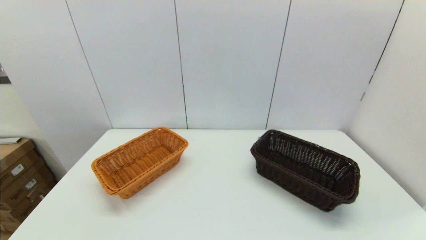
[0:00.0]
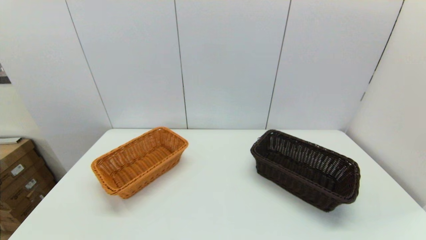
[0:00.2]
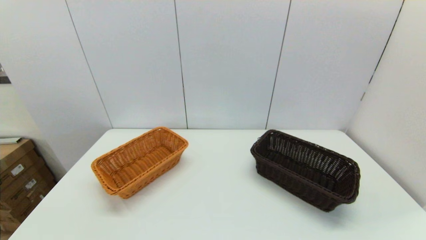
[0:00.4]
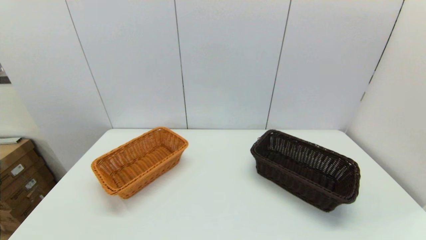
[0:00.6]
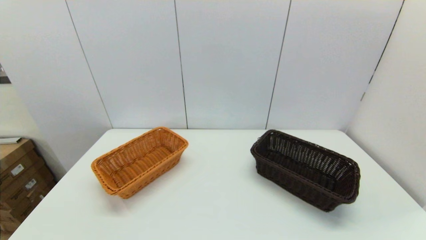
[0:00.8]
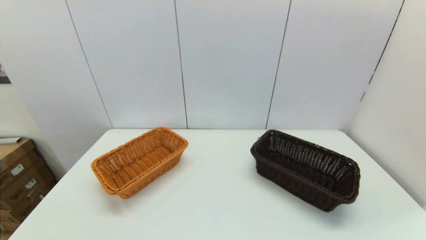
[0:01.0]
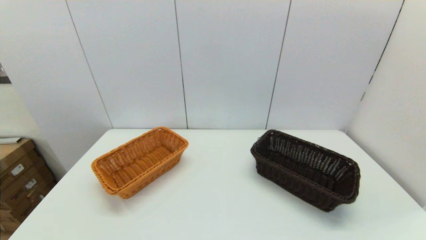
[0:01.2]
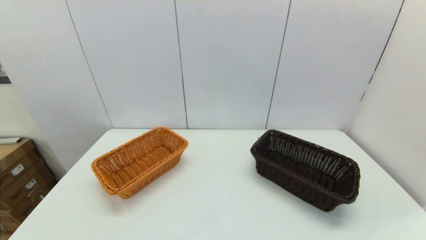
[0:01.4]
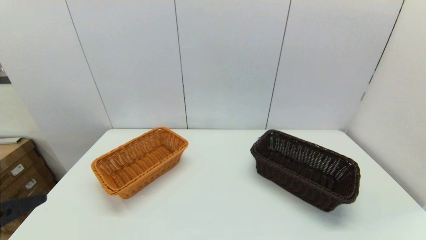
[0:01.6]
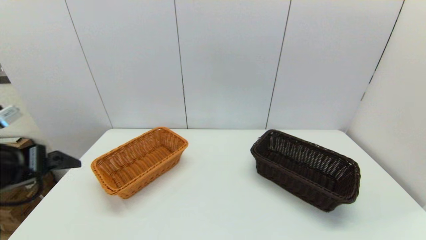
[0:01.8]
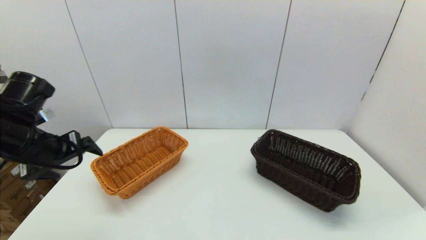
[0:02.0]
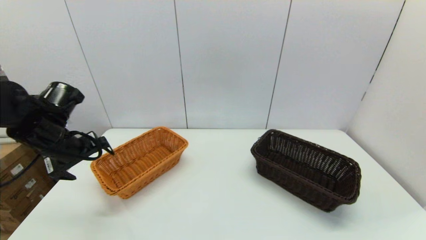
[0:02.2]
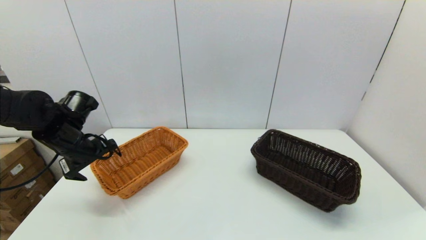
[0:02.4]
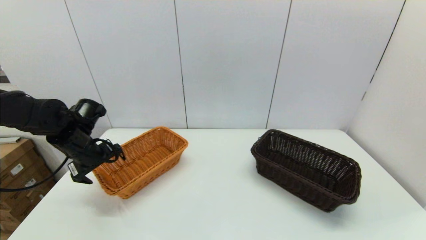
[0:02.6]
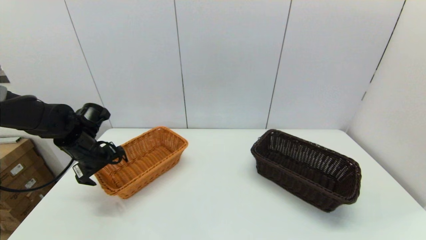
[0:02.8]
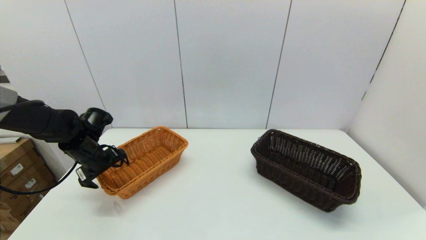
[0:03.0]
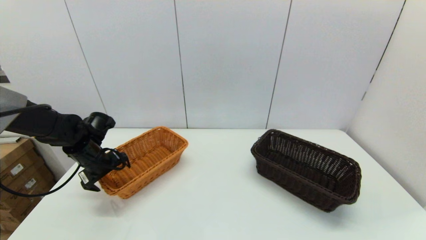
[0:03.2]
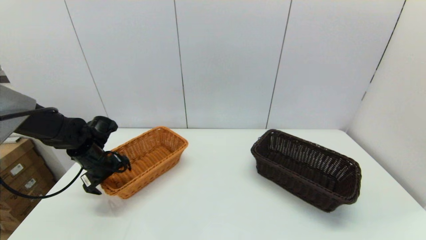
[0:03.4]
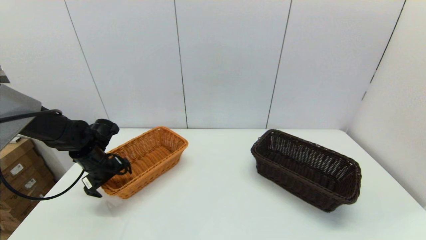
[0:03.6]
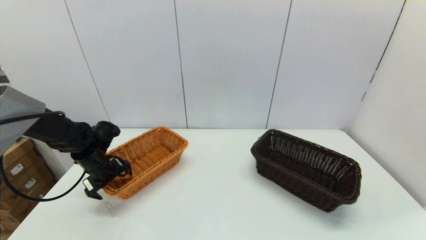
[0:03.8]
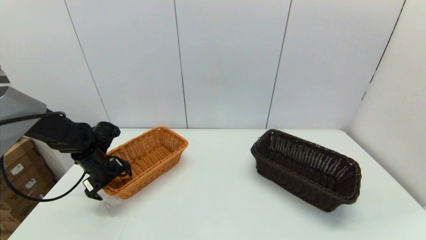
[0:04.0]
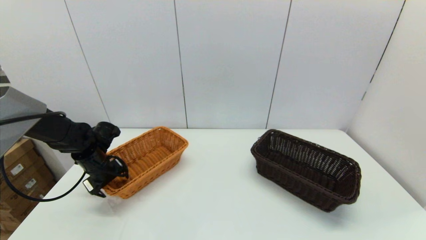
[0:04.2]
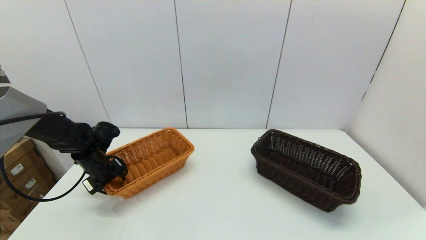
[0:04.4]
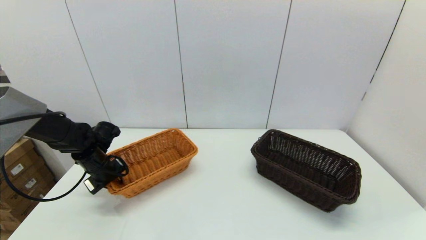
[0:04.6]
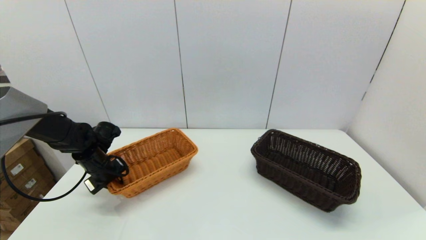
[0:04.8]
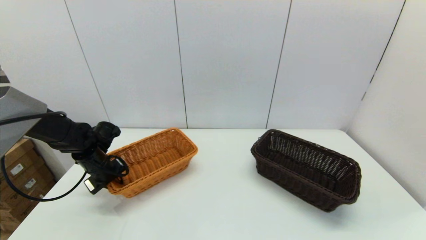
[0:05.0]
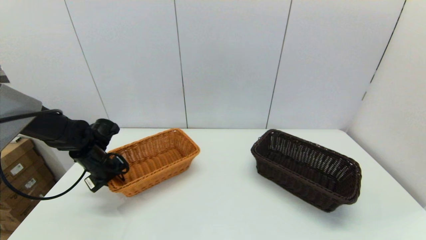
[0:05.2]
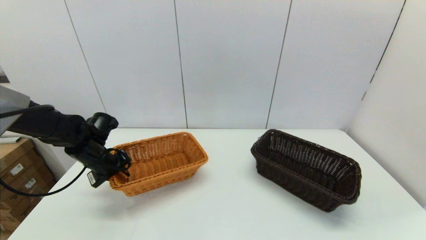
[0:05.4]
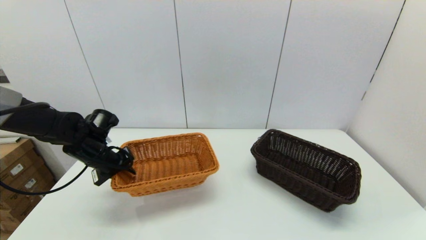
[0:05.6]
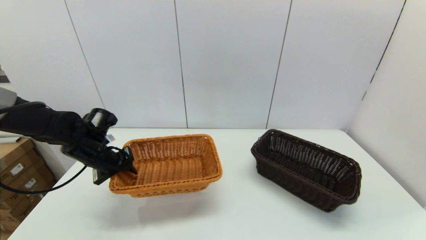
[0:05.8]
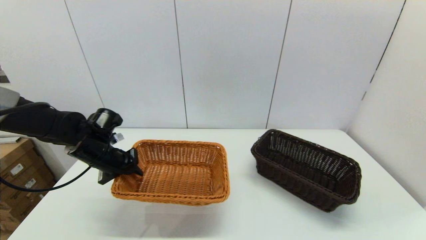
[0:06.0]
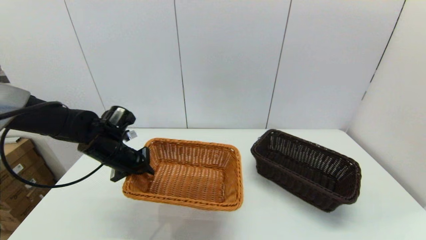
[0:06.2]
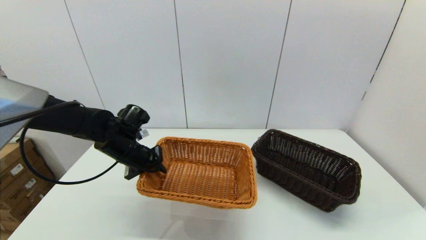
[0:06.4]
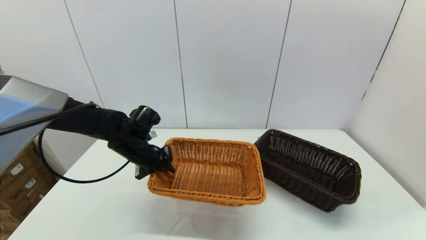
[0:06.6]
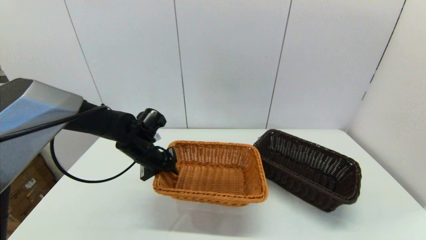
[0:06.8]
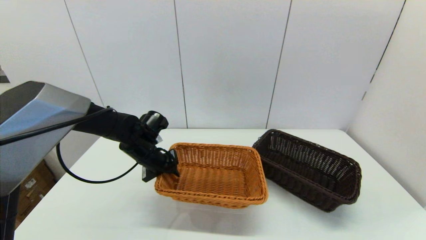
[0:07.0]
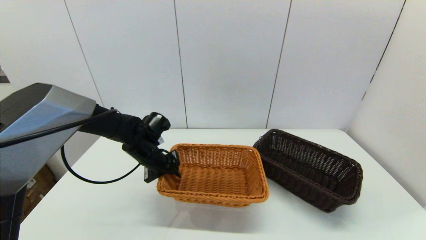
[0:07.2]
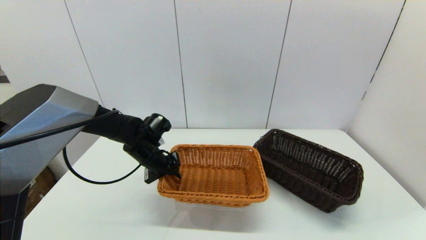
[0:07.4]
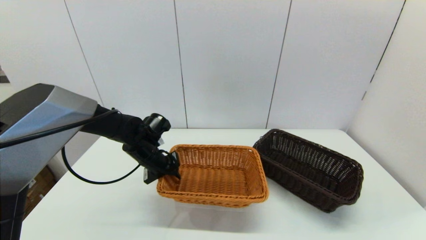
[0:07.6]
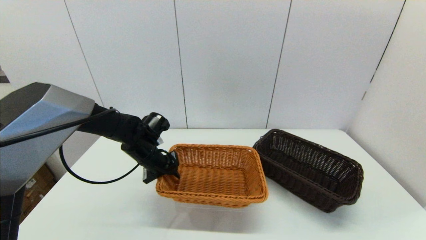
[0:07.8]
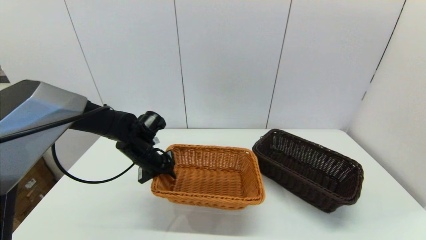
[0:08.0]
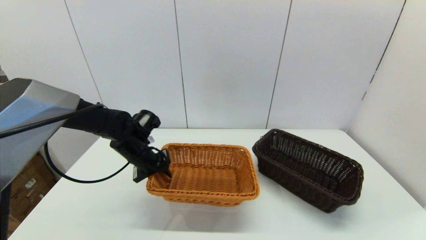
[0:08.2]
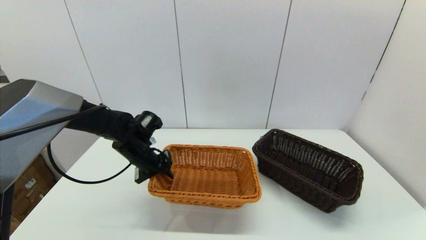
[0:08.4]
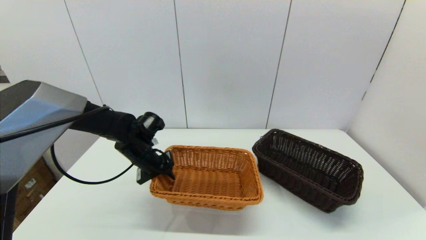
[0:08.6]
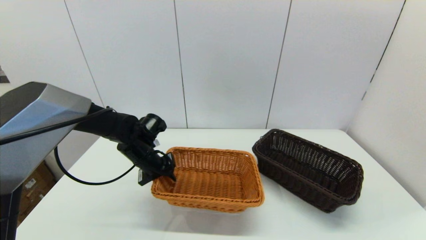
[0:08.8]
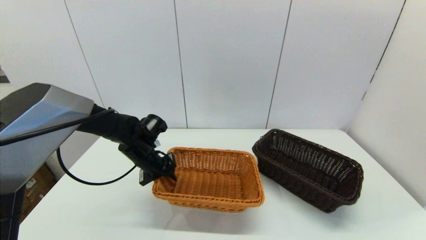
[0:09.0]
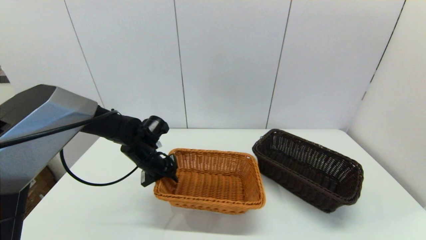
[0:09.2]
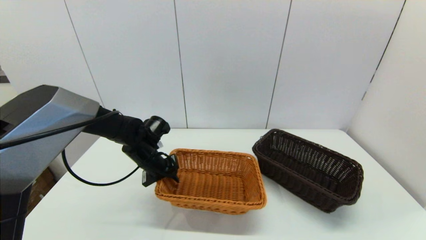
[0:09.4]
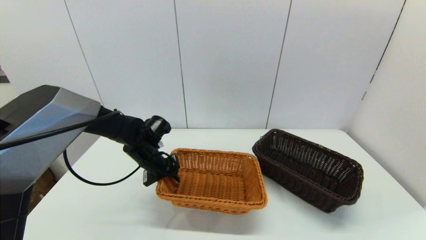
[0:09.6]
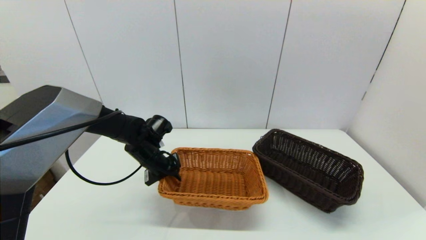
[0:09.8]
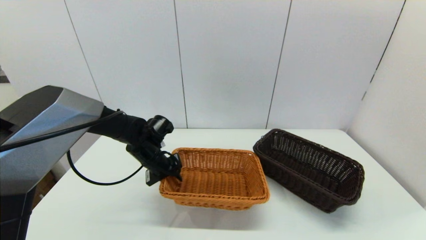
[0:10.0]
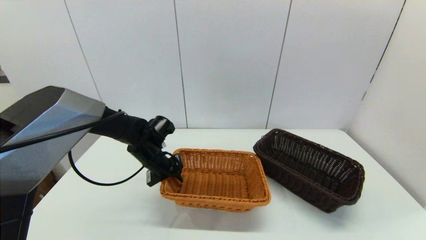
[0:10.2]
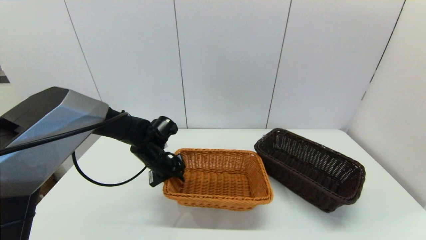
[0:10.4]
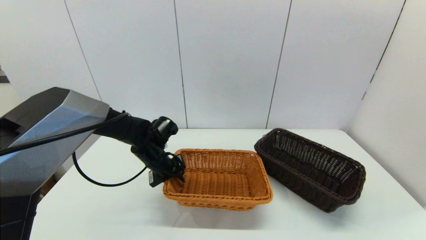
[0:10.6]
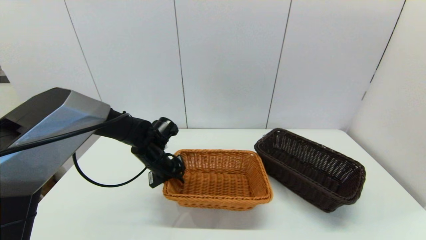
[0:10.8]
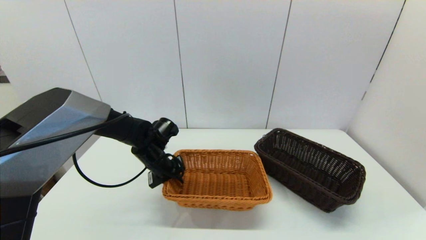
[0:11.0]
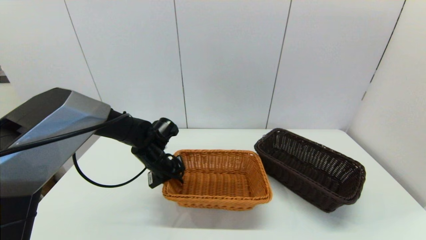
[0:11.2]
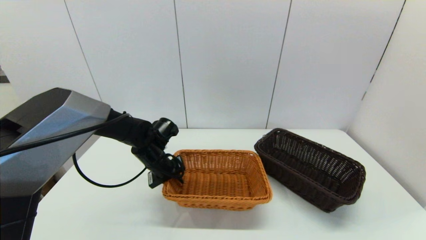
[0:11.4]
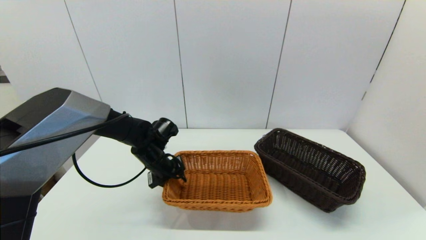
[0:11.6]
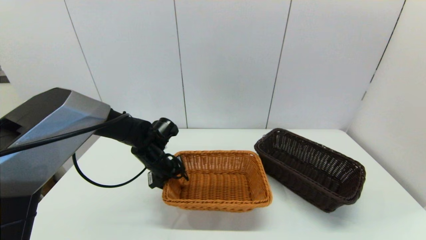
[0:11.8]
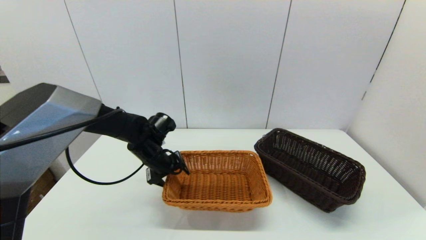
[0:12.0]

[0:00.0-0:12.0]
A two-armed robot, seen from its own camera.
Task of the whole recording: stack a basket on top of another basket.
Step, 0:01.4 to 0:04.8: Grasp the light basket with the left gripper.
0:01.6 to 0:03.0: The left gripper goes approximately 30 cm forward and downward.
0:03.0 to 0:04.4: The left gripper closes up.
0:04.4 to 0:06.0: The left gripper is displaced upward by approximately 5 cm, and closes up.
0:06.0 to 0:07.6: The left gripper moves to the right, about 10 cm.
0:07.6 to 0:10.4: The grippers move only a little.
0:10.4 to 0:12.0: The left gripper opens up.

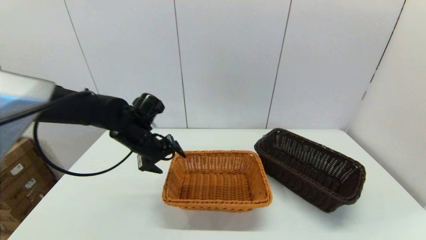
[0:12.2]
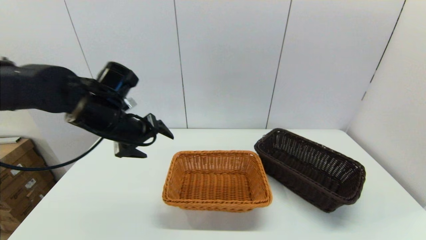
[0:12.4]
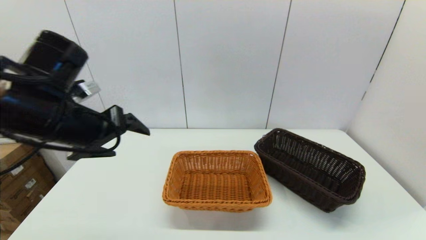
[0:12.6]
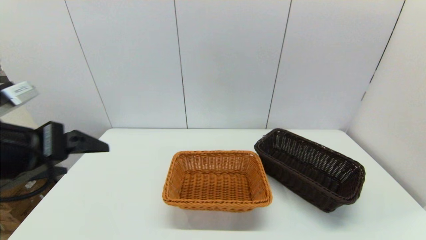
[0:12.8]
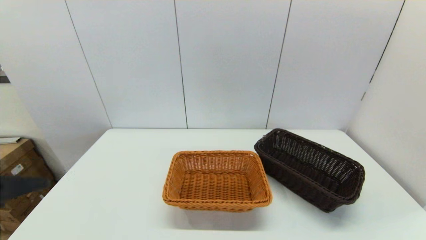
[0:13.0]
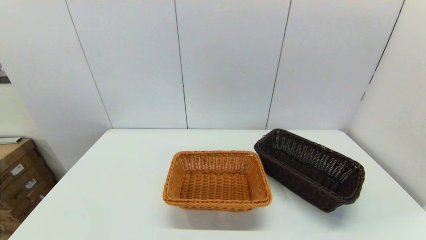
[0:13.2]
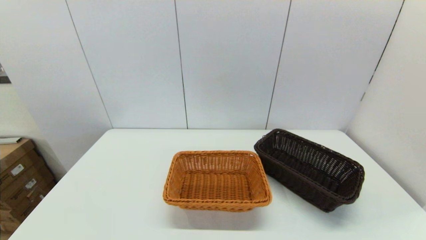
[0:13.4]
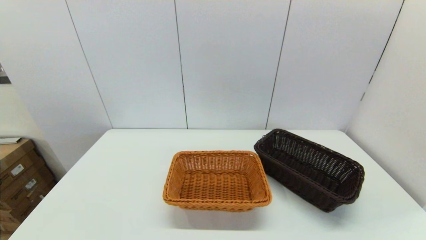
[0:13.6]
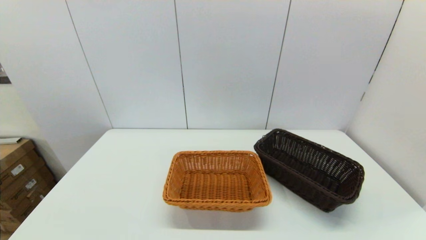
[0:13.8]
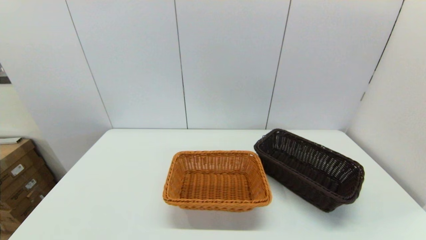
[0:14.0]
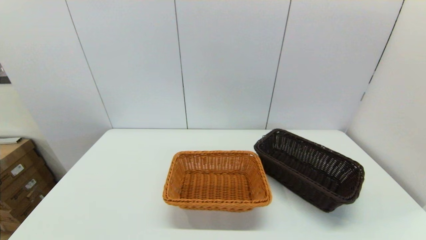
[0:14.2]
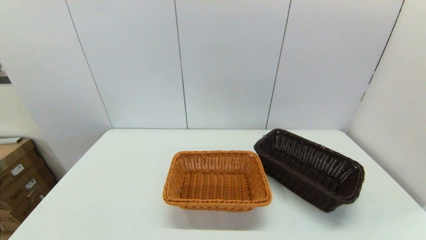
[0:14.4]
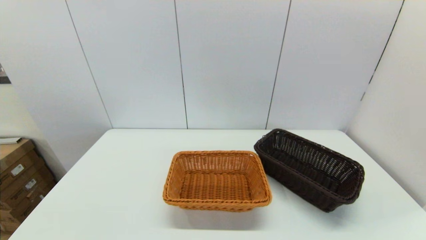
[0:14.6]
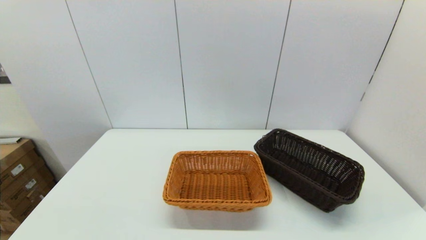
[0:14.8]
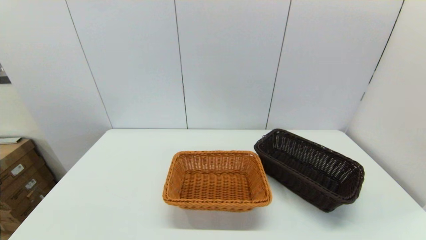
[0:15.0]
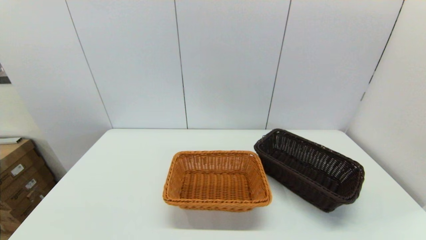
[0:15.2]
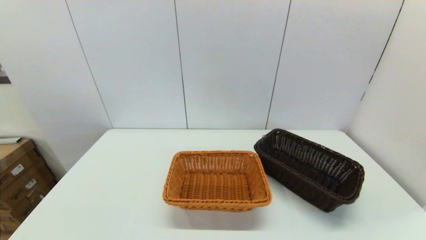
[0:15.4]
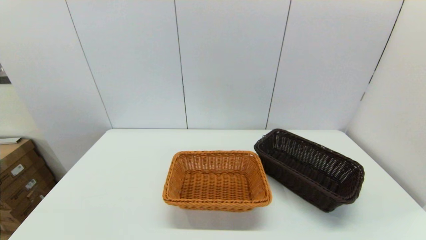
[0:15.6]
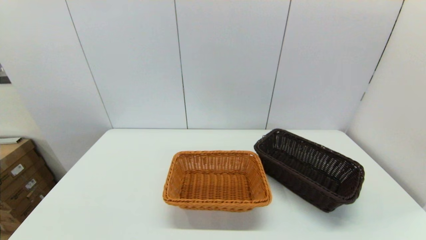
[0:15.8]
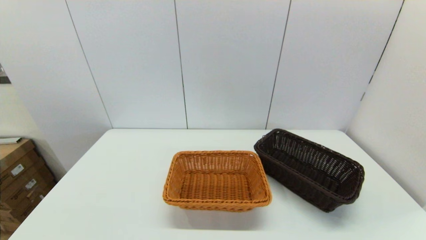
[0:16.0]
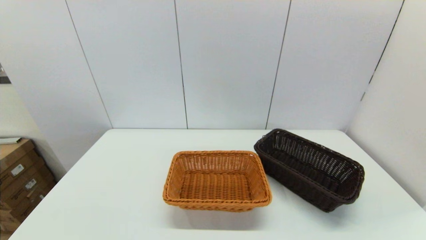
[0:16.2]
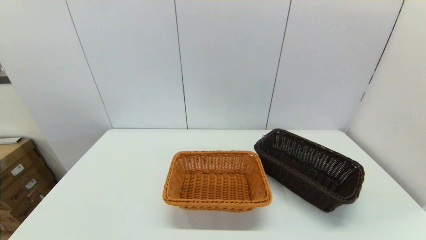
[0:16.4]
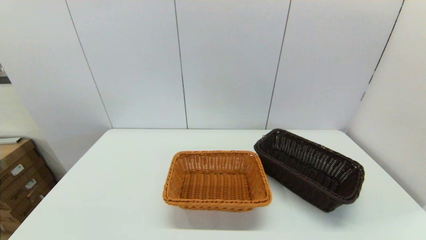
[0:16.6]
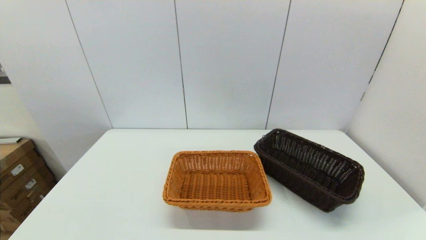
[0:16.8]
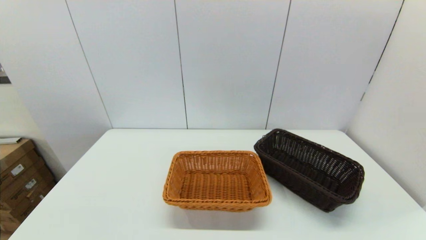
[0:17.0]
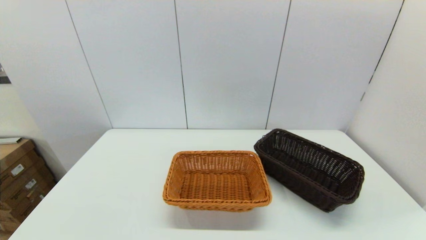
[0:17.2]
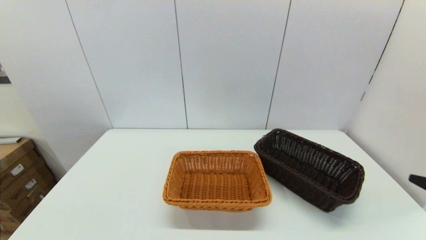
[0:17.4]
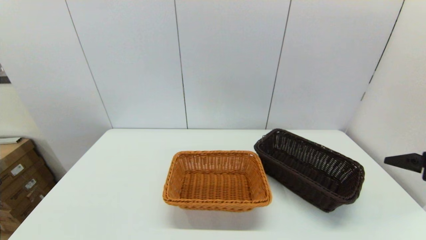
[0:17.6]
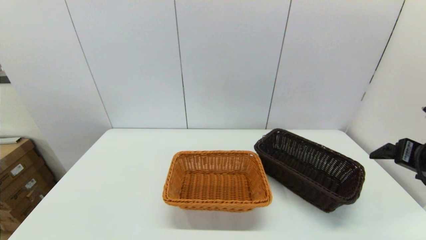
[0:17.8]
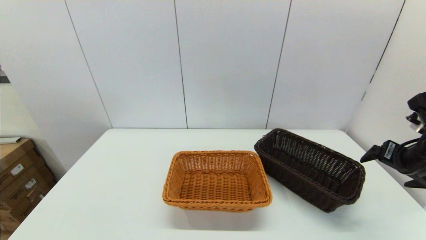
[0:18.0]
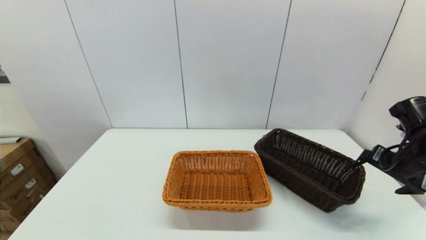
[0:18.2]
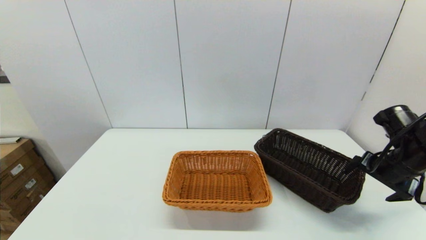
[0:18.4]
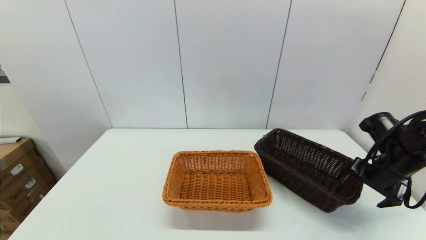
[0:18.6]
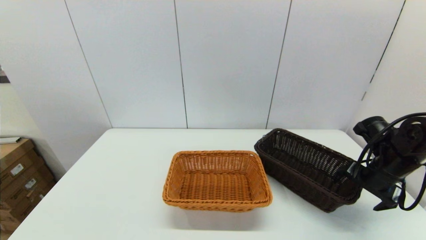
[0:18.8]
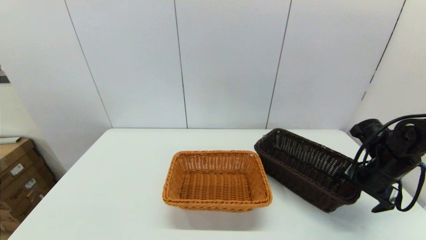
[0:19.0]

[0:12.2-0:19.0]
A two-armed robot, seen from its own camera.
Task of the whole recording: stack a basket on top of another basket.
0:12.2 to 0:13.6: The left gripper heads backward, covering approximately 40 cm.
0:15.0 to 0:16.2: The two grippers keep their place.
0:16.2 to 0:17.6: The right gripper heads forward and upward, covering roughly 25 cm.
0:17.6 to 0:19.0: The right gripper moves forward and downward, roughly 20 cm.
